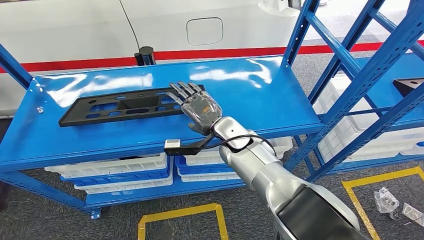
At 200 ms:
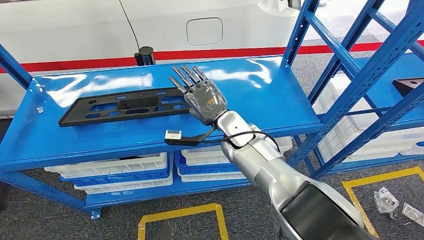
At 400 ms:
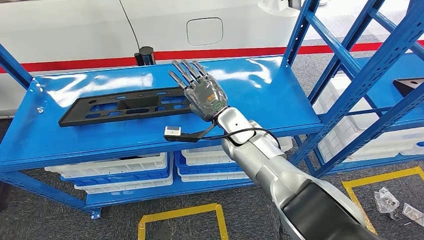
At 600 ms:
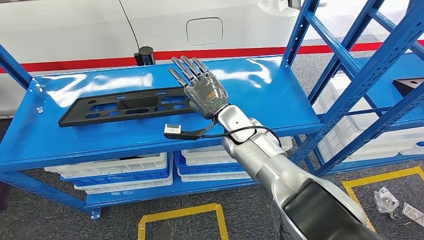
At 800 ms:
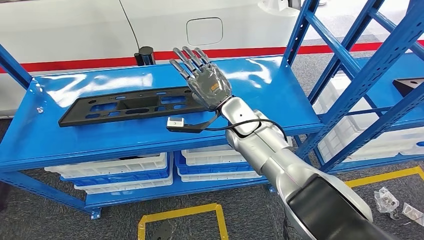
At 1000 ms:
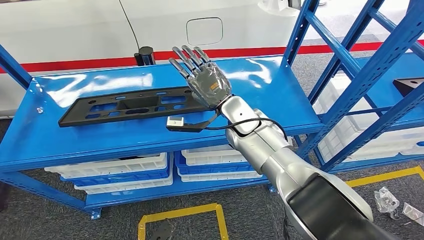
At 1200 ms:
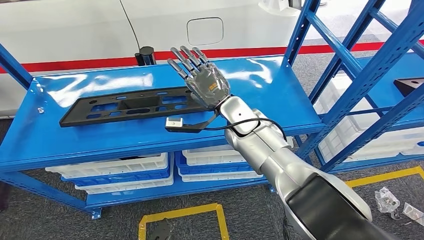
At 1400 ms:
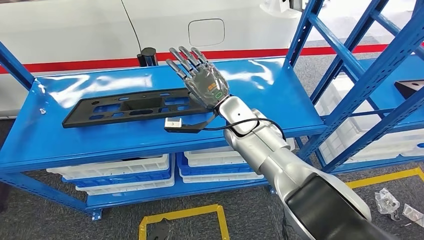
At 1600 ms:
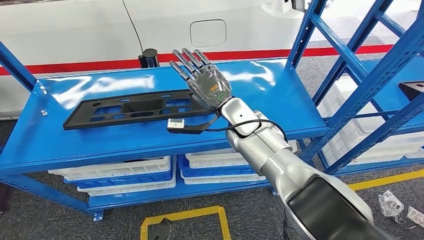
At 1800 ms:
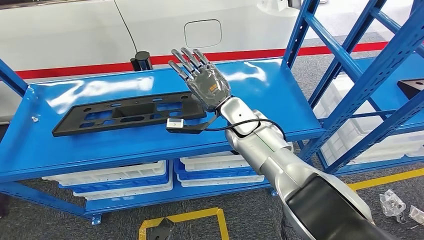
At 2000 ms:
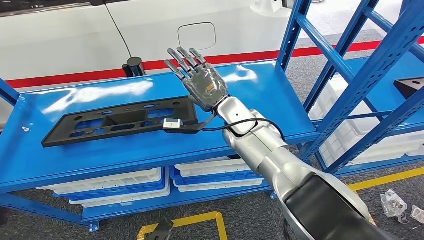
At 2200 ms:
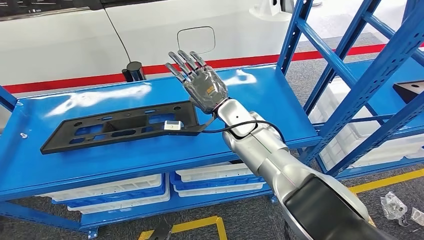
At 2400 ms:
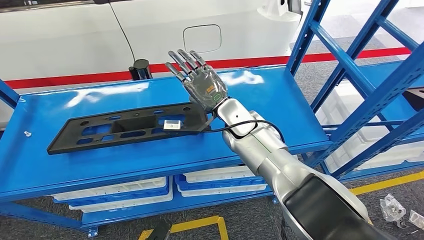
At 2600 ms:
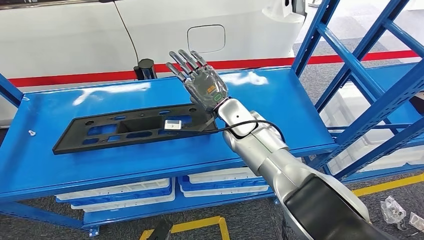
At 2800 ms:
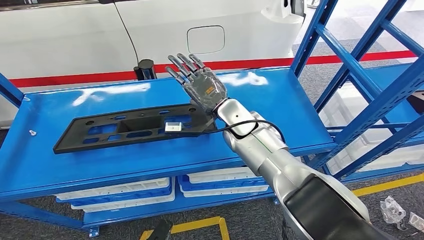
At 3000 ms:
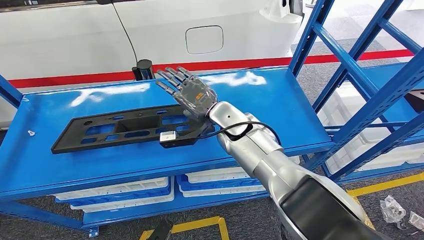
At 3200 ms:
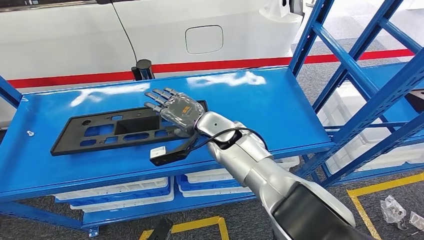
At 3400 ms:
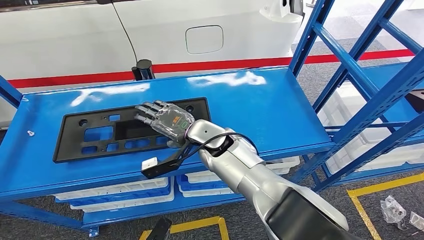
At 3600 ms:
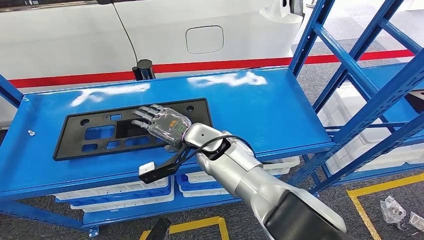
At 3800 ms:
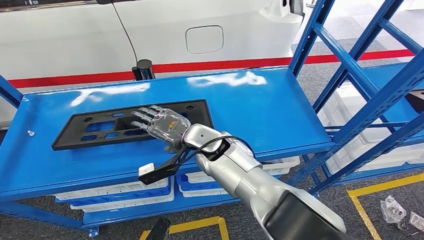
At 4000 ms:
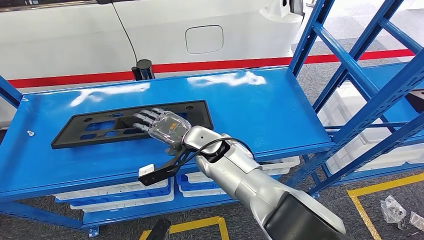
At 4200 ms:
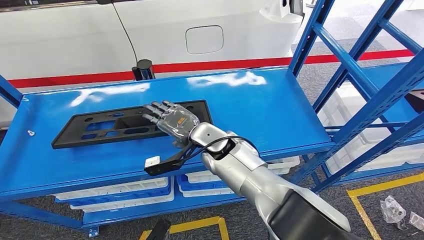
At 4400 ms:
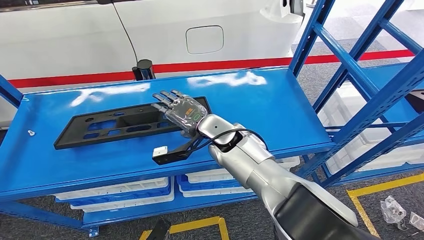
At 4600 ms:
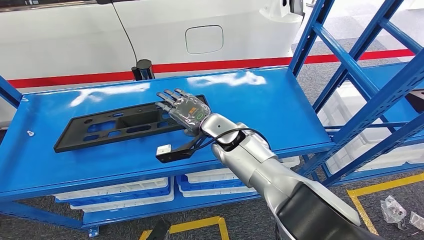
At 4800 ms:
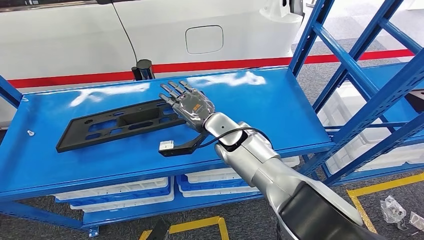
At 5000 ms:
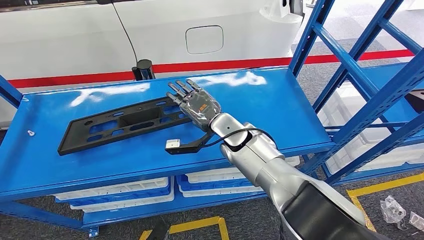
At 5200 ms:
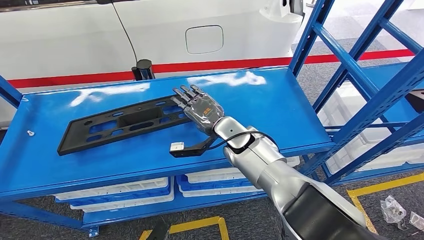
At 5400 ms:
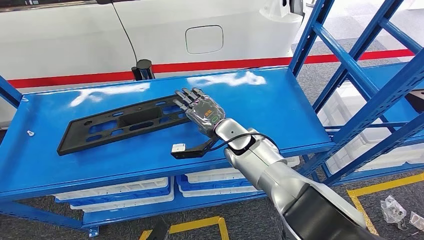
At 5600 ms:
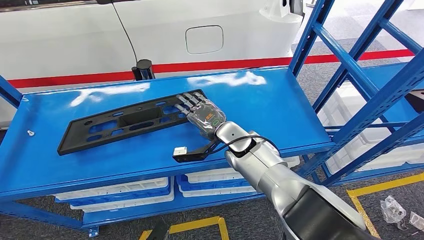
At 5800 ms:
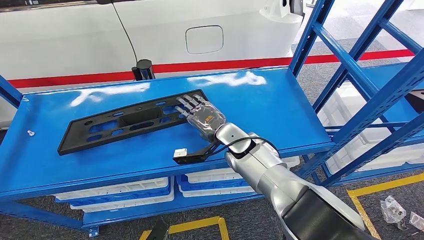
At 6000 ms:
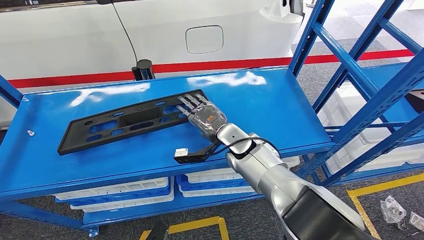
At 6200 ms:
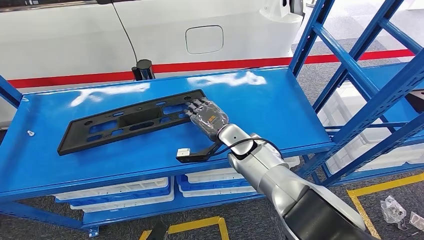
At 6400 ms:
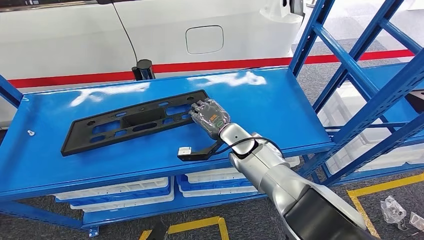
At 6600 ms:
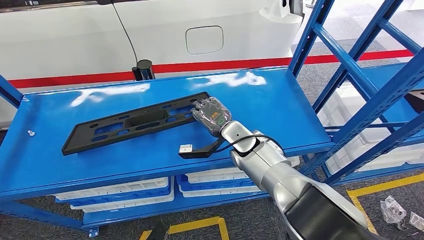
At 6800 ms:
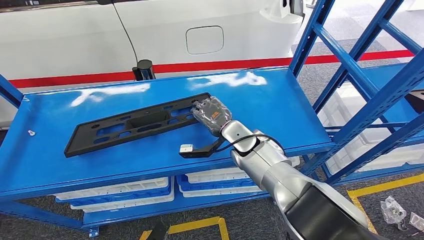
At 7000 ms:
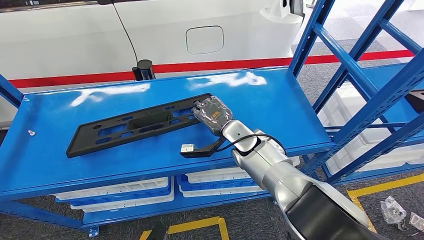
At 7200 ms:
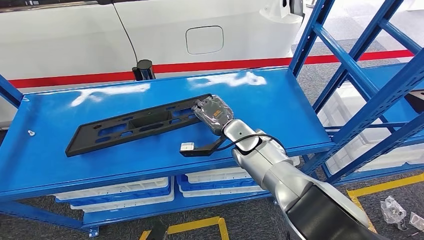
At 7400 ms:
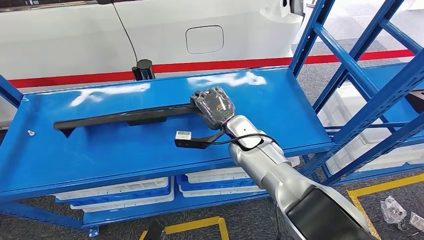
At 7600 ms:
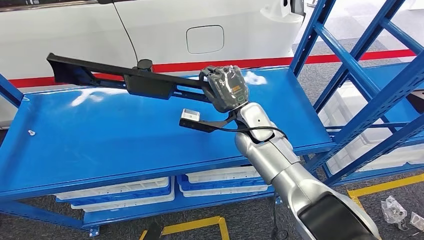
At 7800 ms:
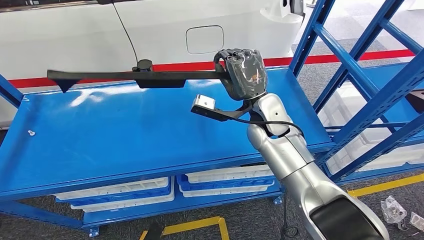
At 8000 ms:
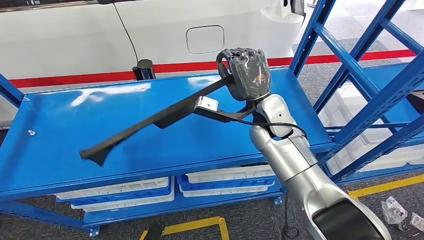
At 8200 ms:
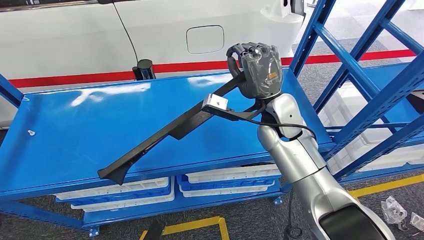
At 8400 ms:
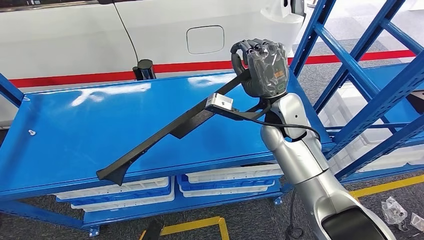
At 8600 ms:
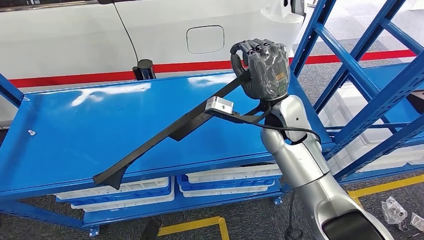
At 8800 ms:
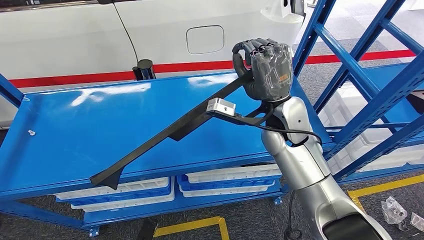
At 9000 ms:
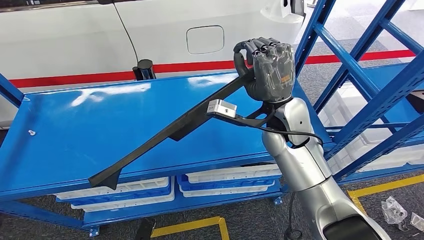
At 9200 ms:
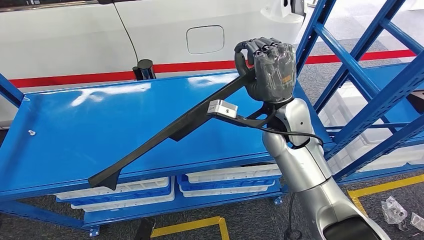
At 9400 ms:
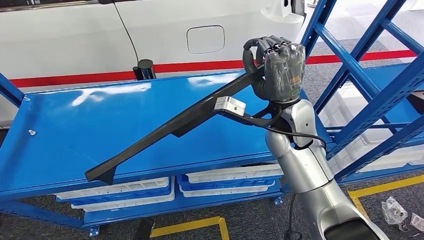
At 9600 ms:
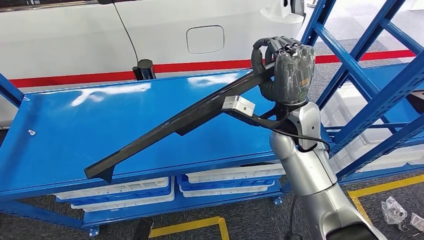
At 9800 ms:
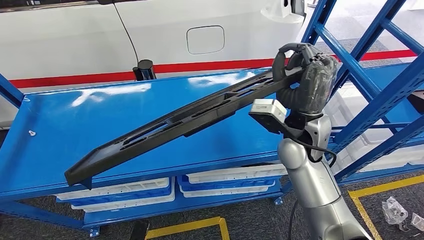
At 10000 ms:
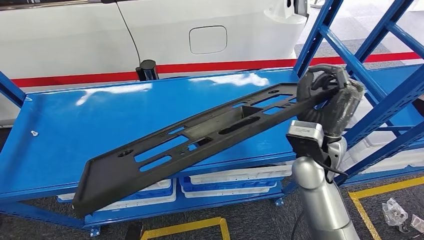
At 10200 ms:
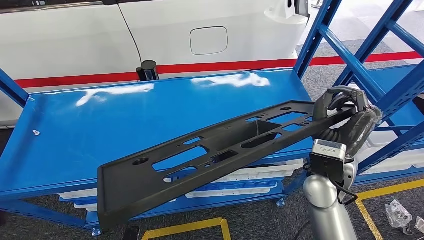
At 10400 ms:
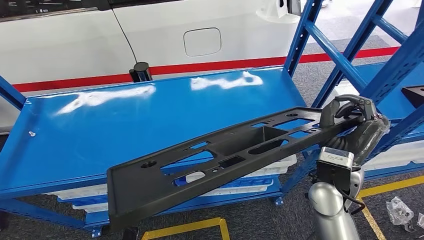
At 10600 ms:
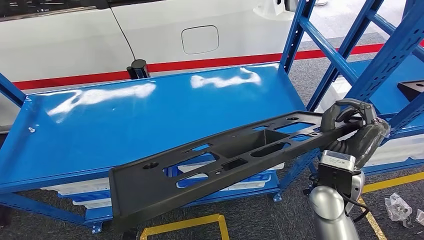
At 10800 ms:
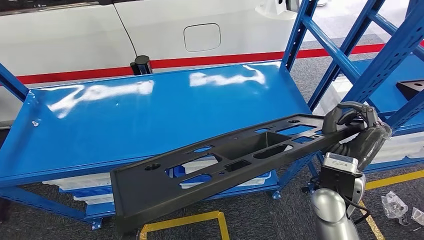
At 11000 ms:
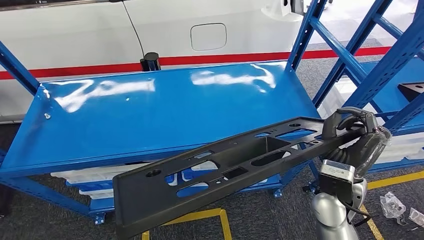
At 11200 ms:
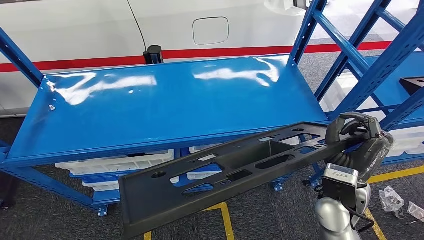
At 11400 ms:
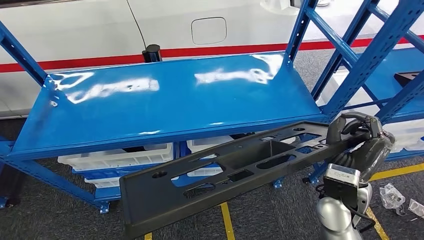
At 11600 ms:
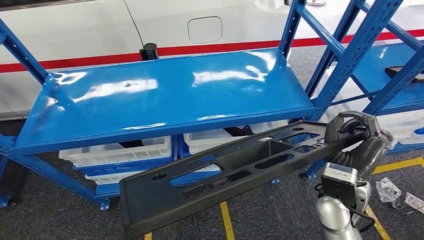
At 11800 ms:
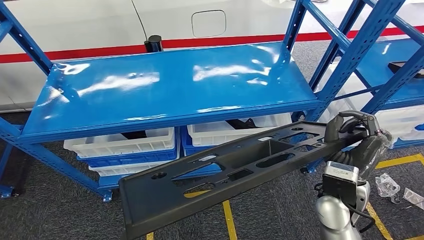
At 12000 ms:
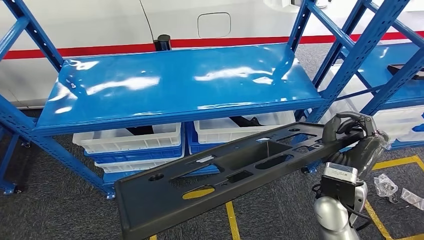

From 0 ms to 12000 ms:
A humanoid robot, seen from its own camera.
Step, from 0 ms to 9600 ms: Pick up the large material from the shelf.
From 4400 ms to 6000 ms: The right hand ends up approximately 5 cm from where it was.
From 6000 ms to 7600 ms: The right hand heads upward, covering approximately 5 cm.
From 7600 ms to 9000 ms: The right hand travels upward and to the right by roughly 10 cm.

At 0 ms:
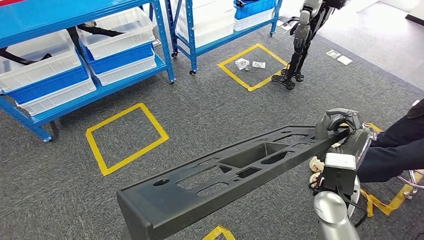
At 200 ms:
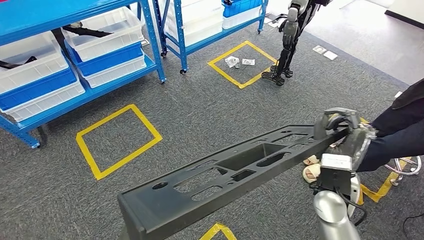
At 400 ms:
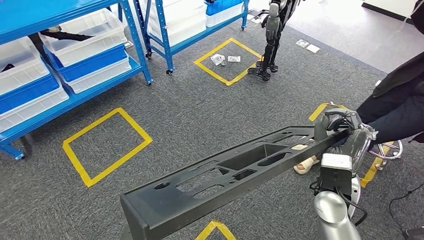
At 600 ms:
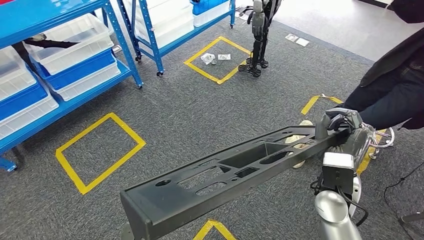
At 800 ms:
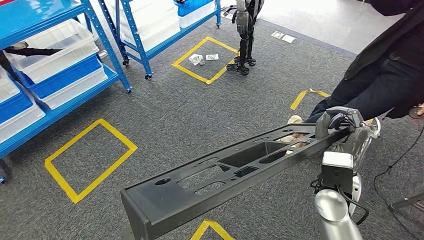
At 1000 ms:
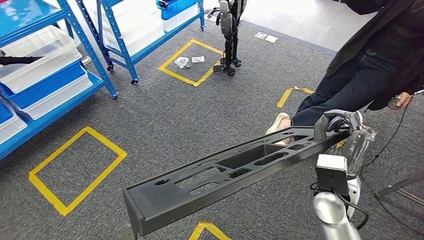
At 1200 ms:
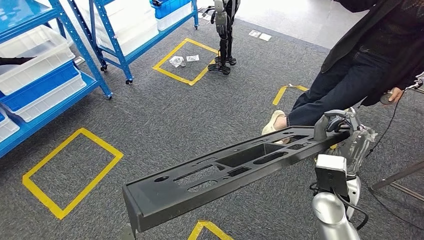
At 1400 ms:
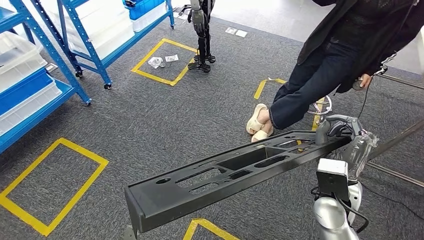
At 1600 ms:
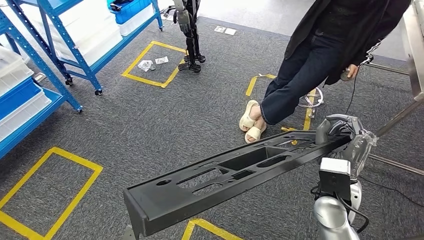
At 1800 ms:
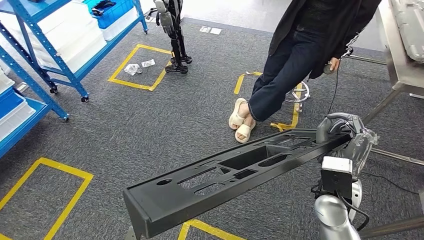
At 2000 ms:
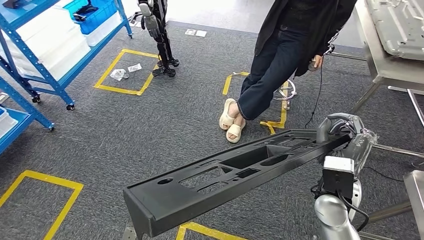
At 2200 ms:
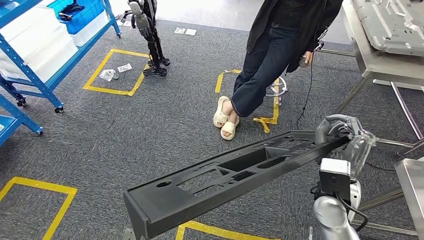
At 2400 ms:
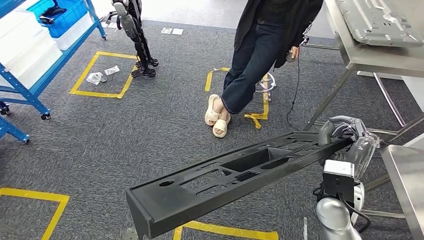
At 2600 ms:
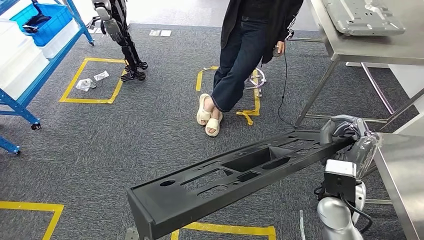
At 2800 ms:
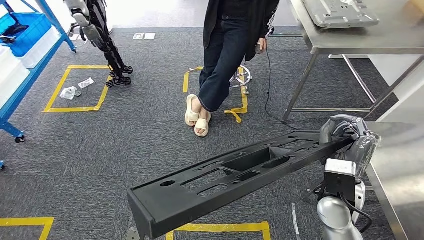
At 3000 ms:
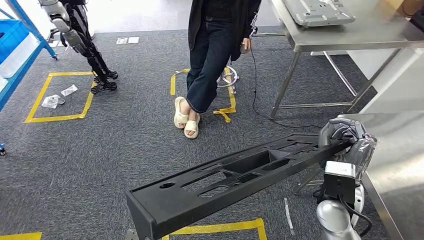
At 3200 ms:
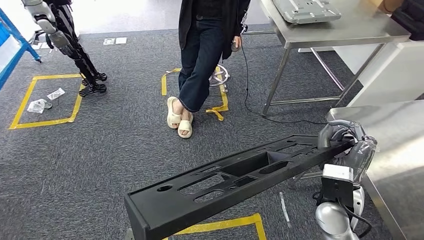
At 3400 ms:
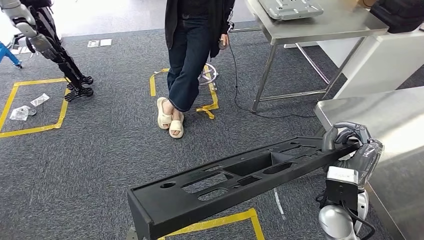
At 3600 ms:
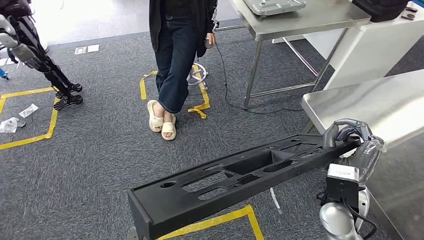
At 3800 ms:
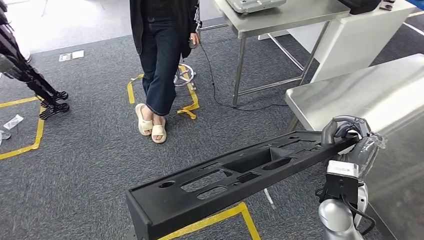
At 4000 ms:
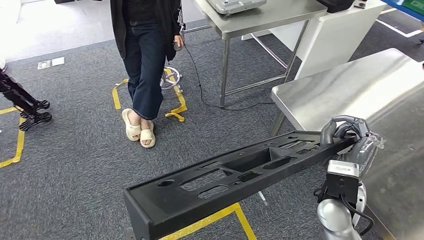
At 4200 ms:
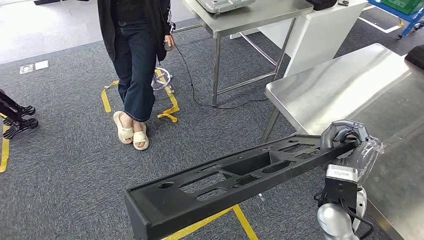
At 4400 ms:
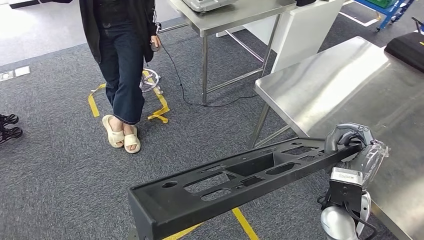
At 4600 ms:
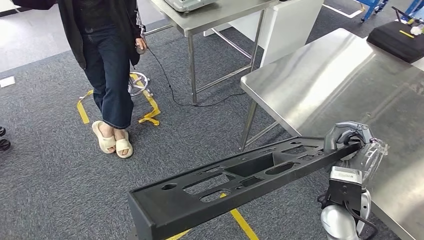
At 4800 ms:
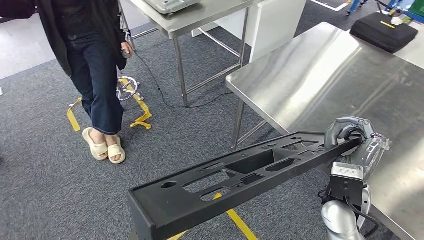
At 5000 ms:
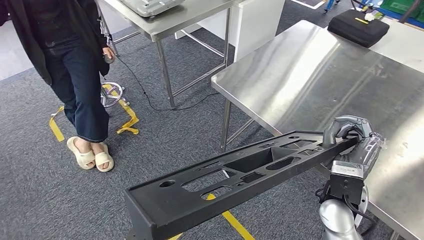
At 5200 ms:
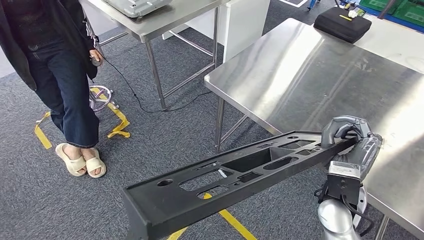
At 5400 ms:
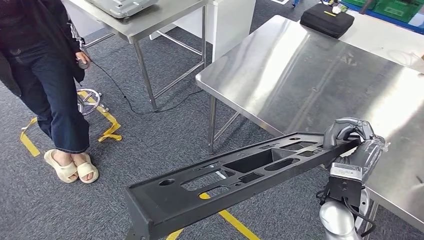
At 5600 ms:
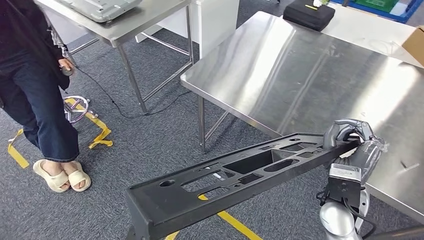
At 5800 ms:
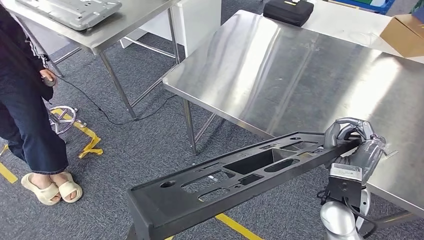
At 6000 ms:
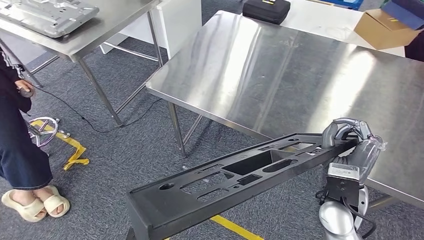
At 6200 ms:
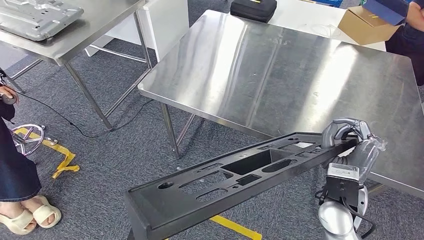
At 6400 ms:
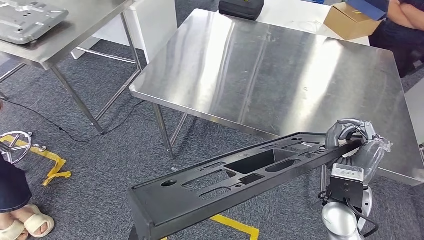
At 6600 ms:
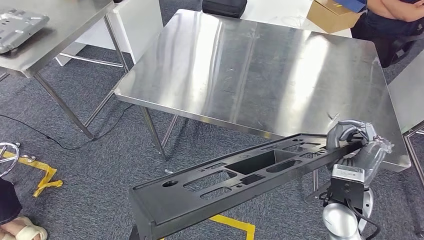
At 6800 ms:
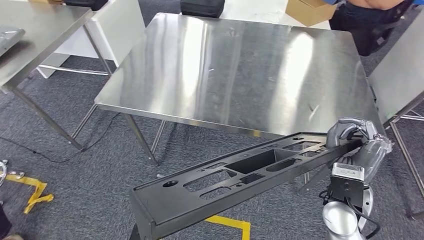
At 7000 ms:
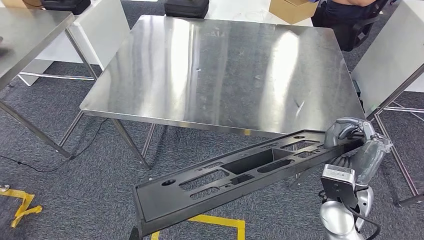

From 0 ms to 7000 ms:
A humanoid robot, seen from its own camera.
Step, from 0 ms to 4200 ms: Move the large material to the workbench.
